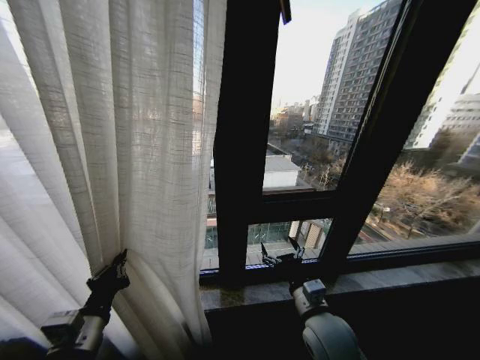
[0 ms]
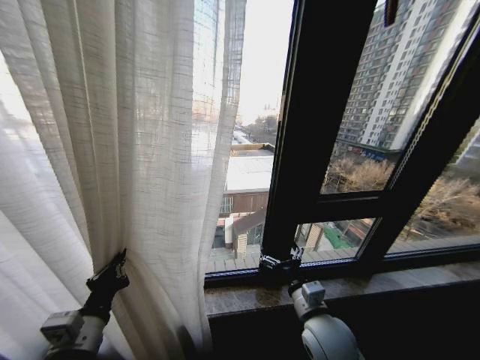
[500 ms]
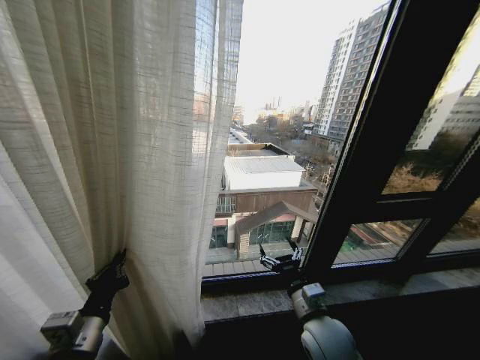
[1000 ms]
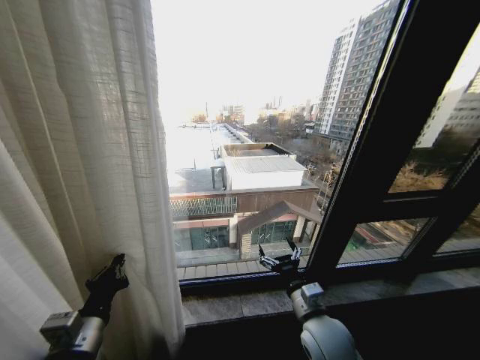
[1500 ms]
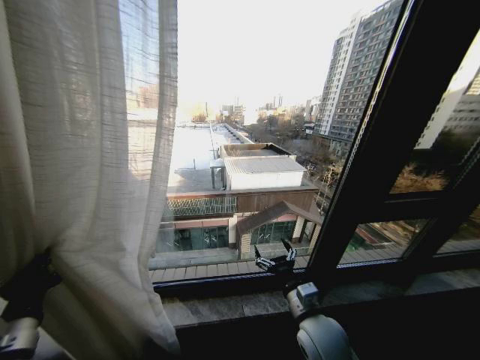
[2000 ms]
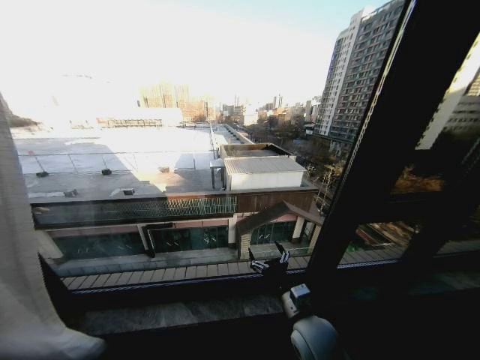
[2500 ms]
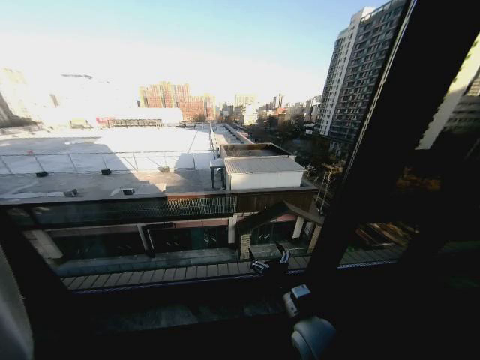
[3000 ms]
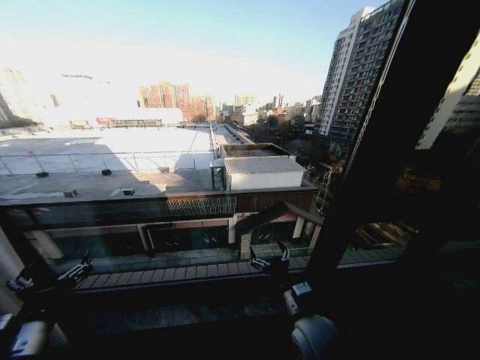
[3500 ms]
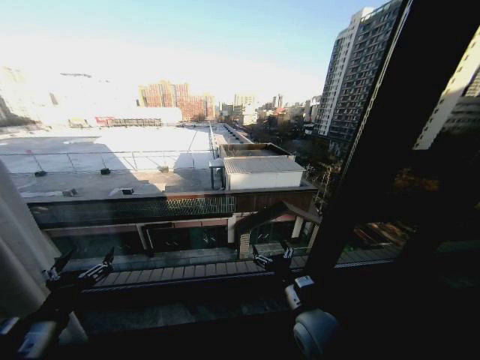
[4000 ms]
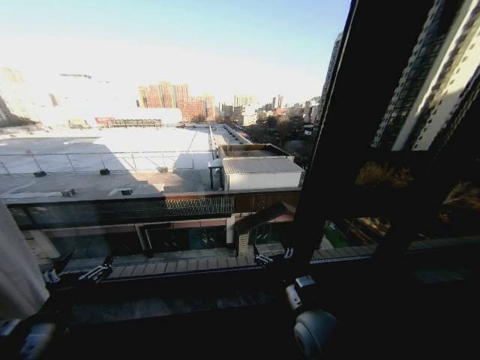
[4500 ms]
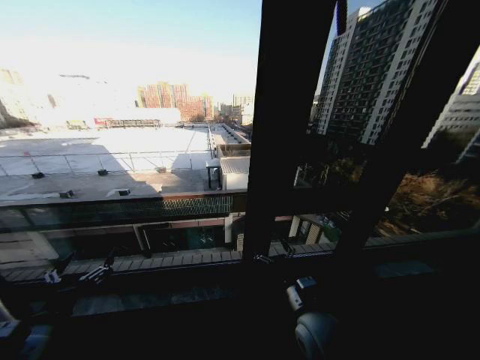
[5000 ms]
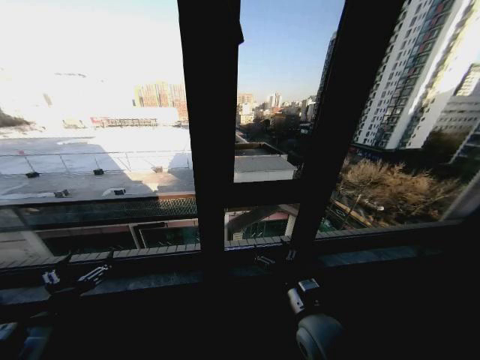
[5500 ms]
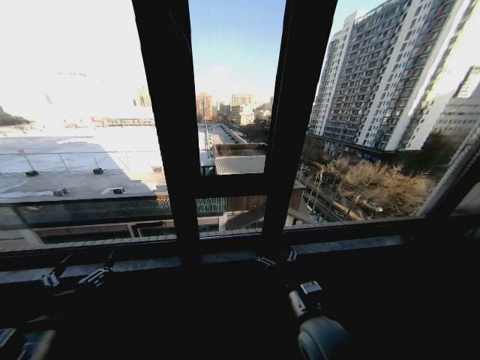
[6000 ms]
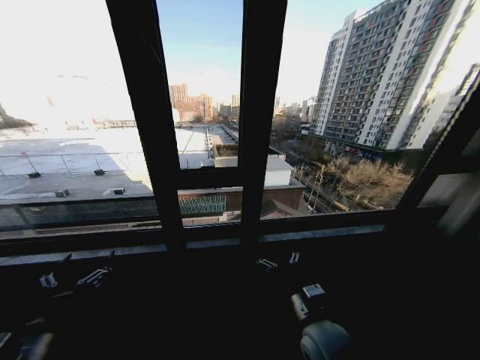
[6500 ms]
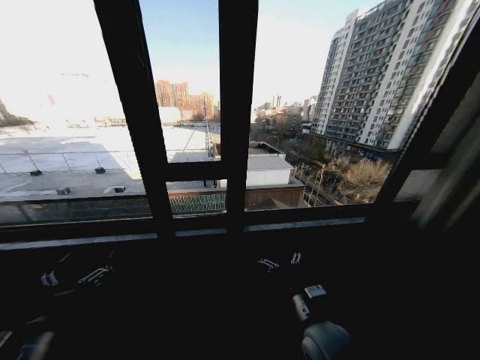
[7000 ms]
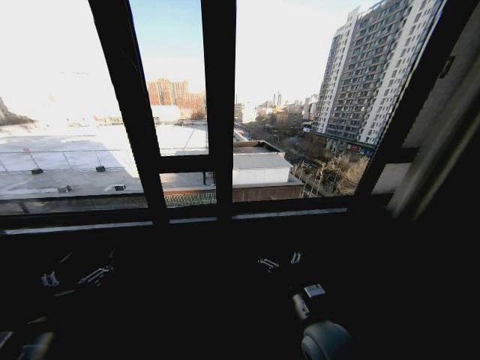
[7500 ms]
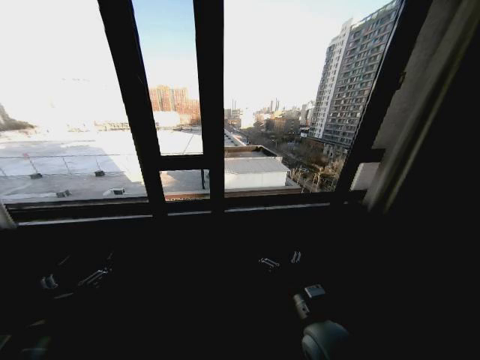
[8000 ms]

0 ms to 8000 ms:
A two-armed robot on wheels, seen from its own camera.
Task of the whole recording: Open the curtains by pulling them apart, changing their state from closed to fully open.
0 ms to 2000 ms: The left gripper travels to the left by about 5 cm.
2000 ms to 4000 ms: The left gripper moves about 15 cm to the left and comes back, and opens.
